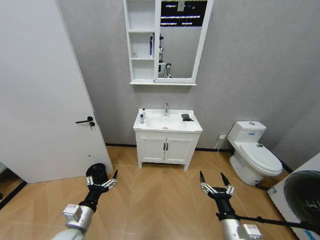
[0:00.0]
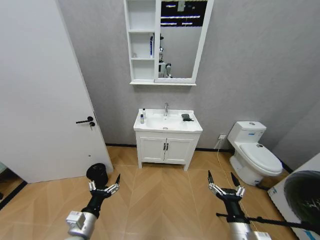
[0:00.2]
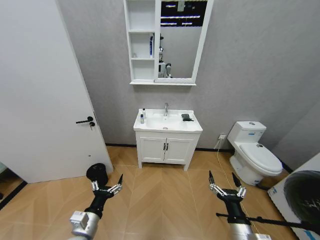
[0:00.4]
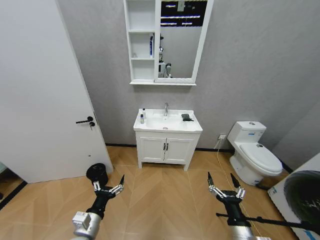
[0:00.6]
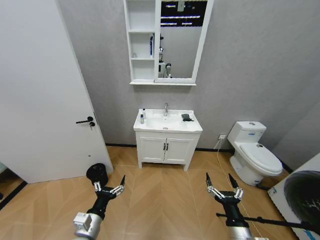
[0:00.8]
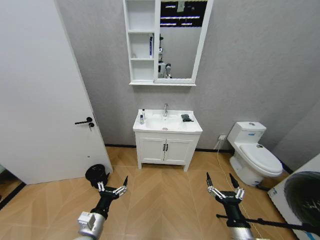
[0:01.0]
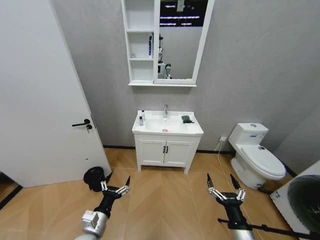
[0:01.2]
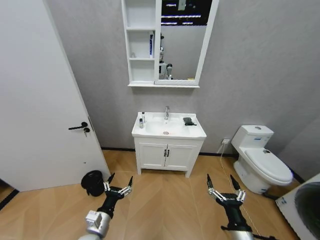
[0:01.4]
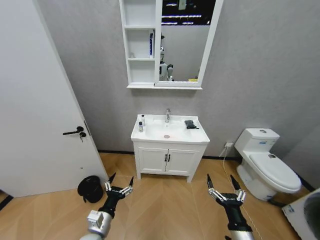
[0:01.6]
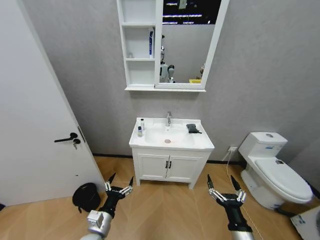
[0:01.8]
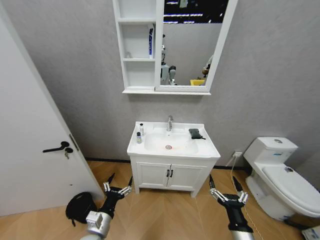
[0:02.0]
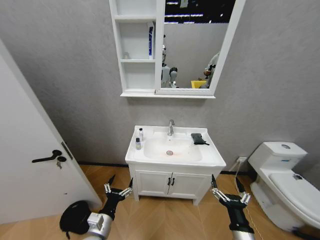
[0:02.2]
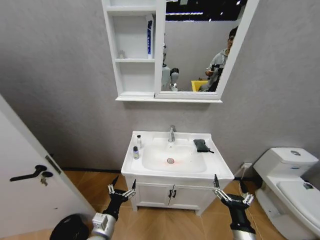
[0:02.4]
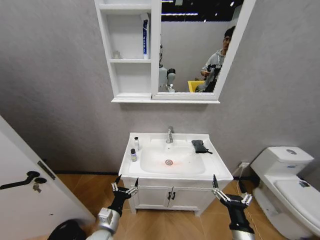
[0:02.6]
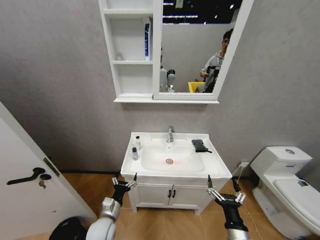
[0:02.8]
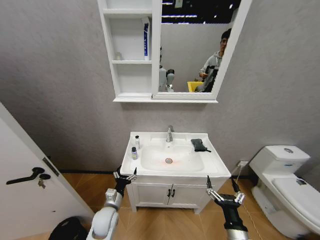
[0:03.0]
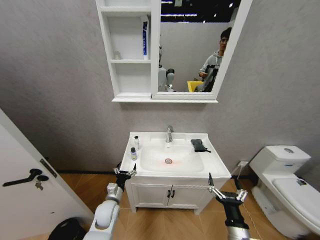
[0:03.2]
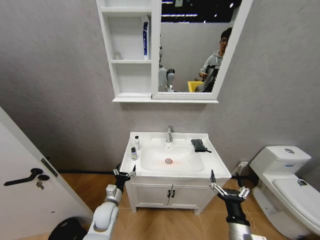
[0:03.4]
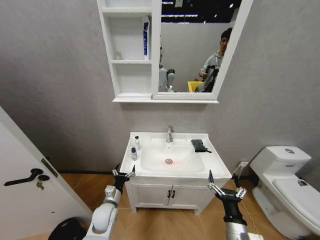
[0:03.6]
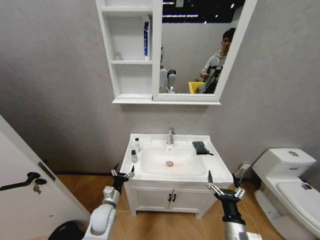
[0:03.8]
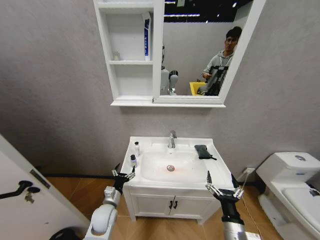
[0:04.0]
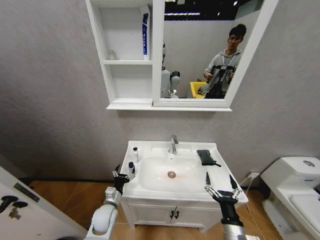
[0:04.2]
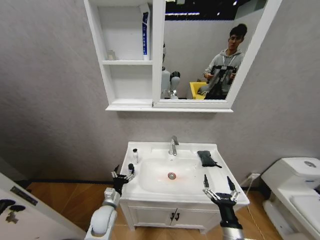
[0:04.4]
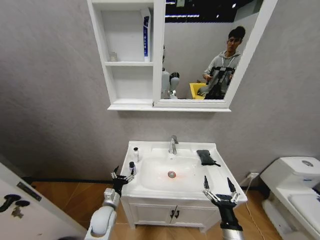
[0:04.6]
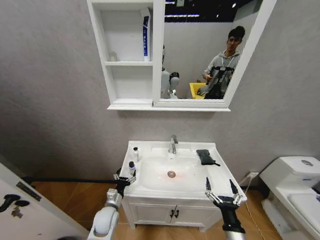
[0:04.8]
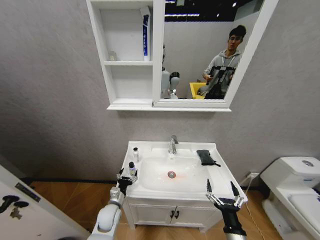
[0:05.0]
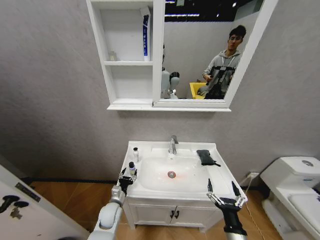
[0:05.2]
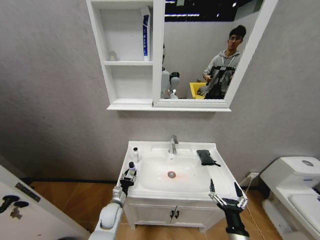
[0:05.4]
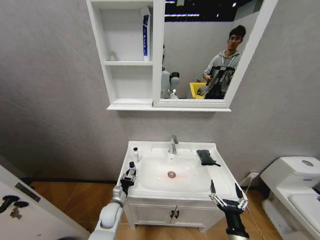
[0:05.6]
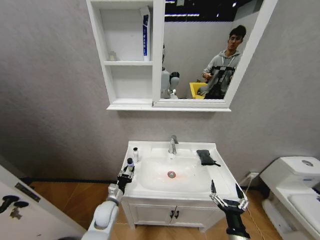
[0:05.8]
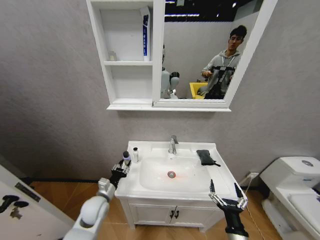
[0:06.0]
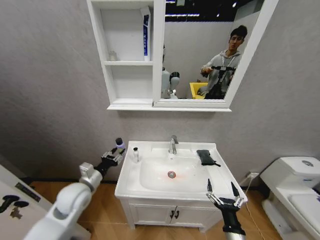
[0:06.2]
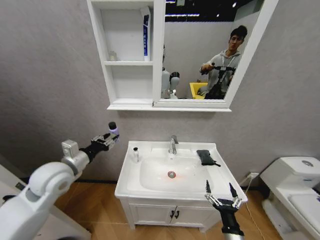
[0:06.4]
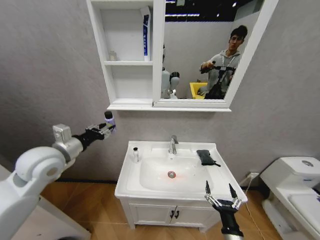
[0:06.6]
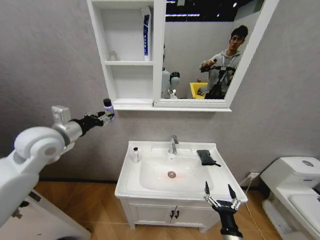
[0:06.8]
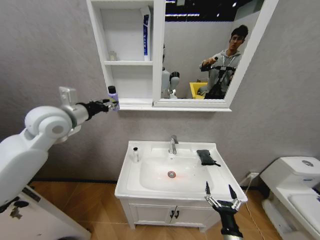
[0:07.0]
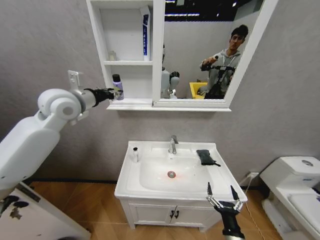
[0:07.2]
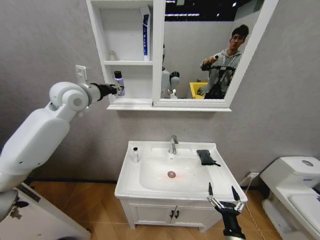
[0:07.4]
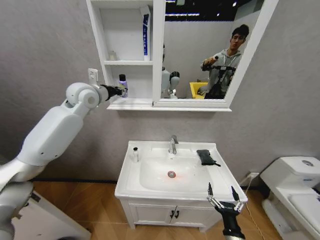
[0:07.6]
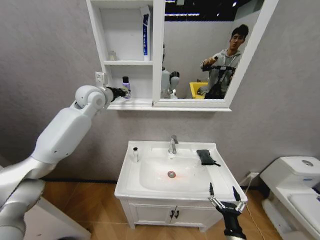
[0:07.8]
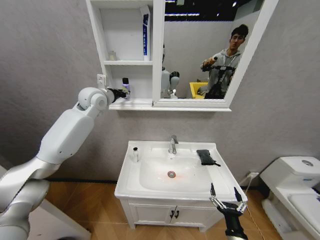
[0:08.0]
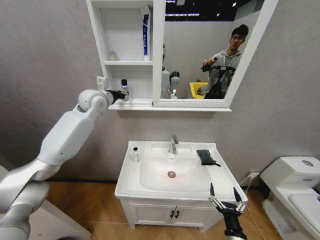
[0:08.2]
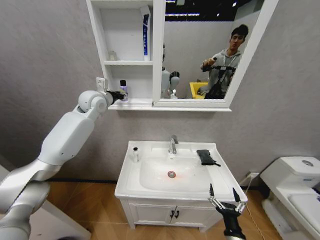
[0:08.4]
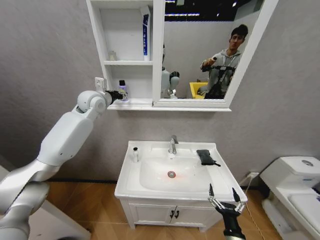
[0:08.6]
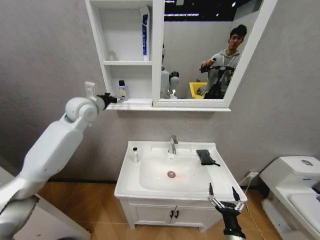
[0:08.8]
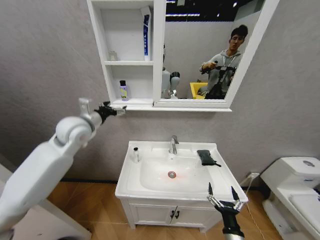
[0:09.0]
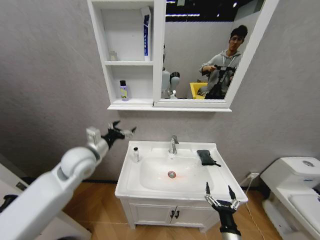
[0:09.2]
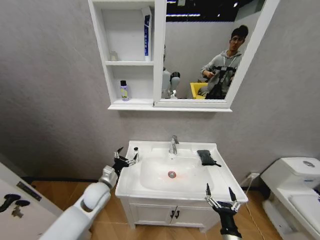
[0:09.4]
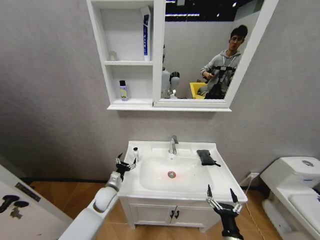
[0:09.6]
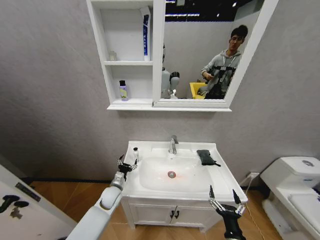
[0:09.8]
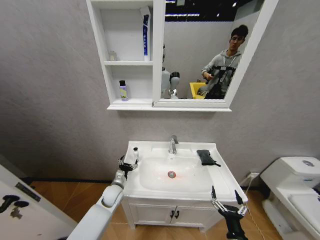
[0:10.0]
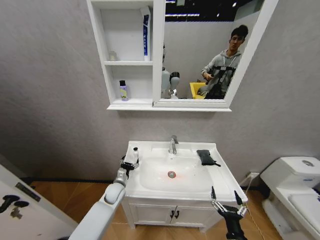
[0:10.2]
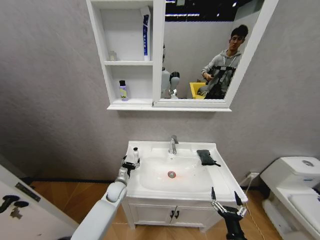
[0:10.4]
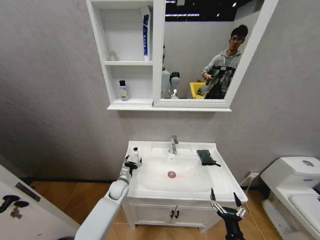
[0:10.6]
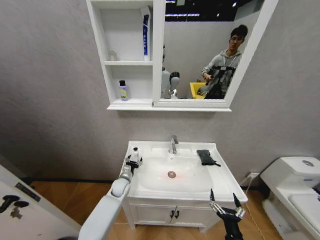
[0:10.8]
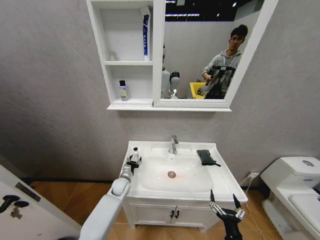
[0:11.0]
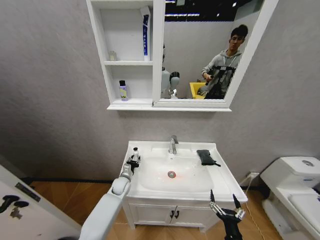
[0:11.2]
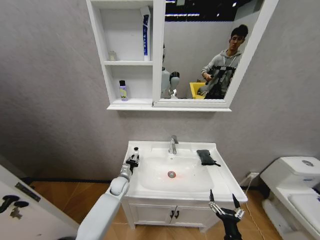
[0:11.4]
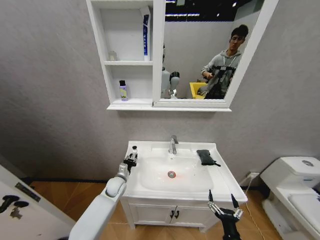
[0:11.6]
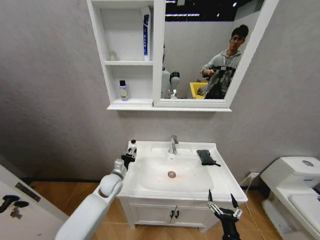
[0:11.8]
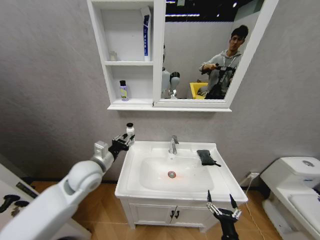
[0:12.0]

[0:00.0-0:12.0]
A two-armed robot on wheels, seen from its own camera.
Task of the whole recording: Move facial cleanser and shampoo from washbasin to cabinet, then wipe washbasin with towel.
0:01.6 to 0:03.0: The left gripper shifts some 10 cm forward and downward.
0:04.4 to 0:06.0: The left gripper closes its fingers.
0:06.0 to 0:07.6: The left gripper goes some 50 cm upward.
0:07.6 to 0:09.0: The left gripper shifts approximately 15 cm downward and backward, and opens its fingers.
0:09.0 to 0:10.4: The left gripper is displaced downward by roughly 35 cm.
0:10.4 to 0:12.0: The left gripper is displaced upward by roughly 25 cm, and closes up.

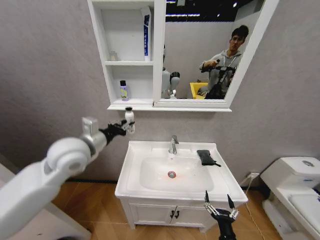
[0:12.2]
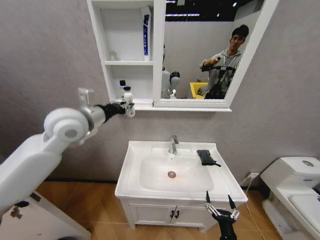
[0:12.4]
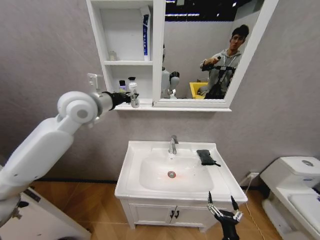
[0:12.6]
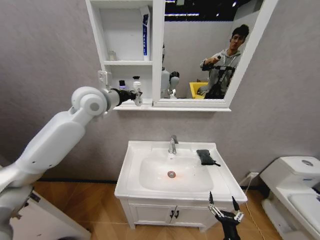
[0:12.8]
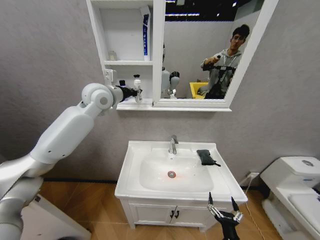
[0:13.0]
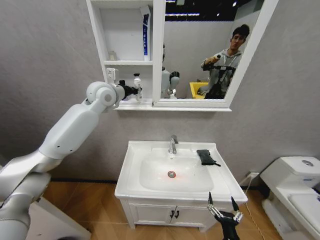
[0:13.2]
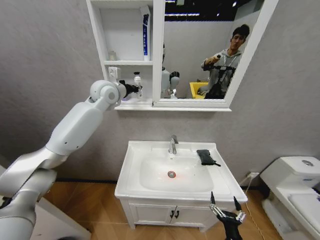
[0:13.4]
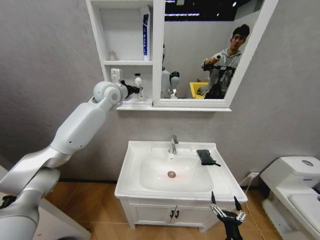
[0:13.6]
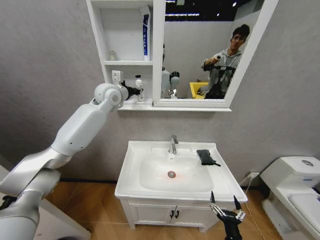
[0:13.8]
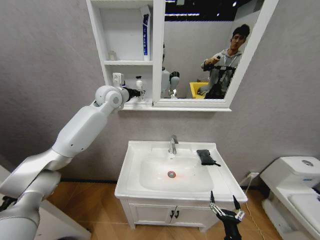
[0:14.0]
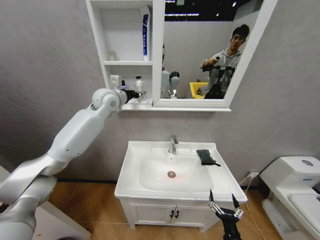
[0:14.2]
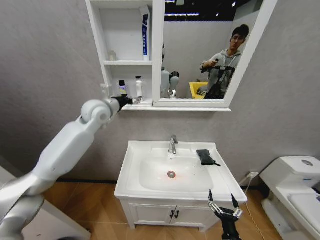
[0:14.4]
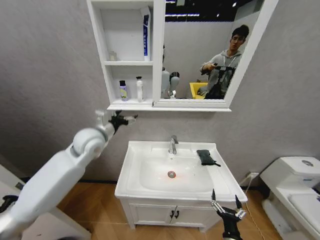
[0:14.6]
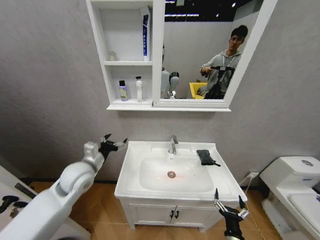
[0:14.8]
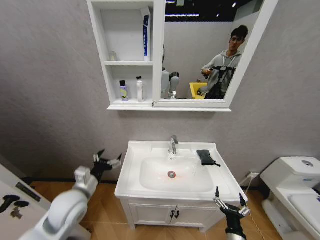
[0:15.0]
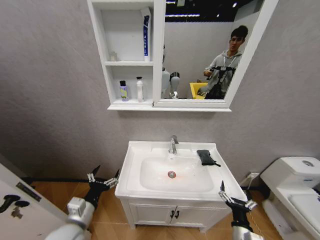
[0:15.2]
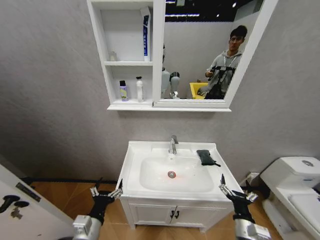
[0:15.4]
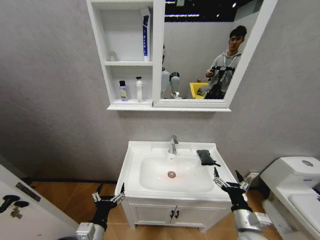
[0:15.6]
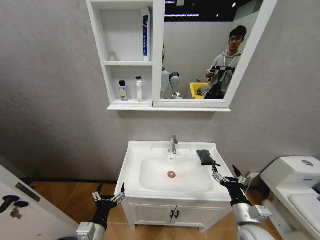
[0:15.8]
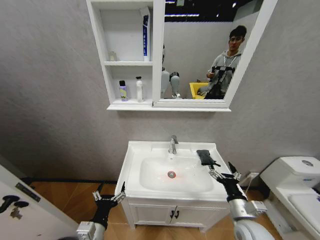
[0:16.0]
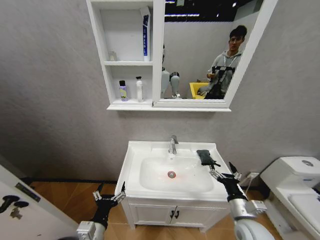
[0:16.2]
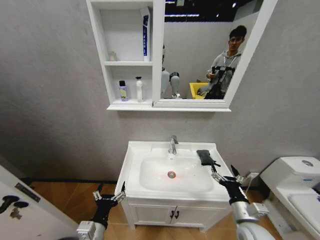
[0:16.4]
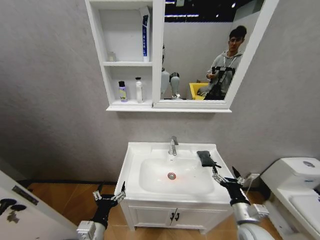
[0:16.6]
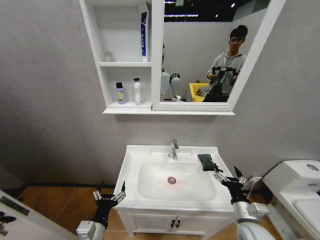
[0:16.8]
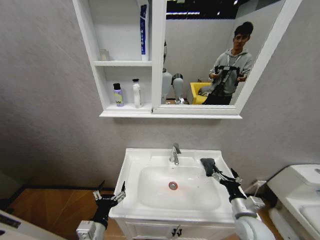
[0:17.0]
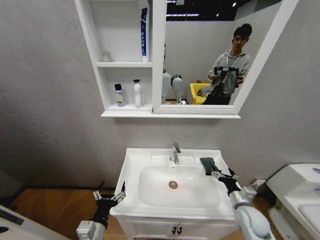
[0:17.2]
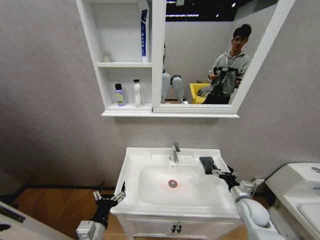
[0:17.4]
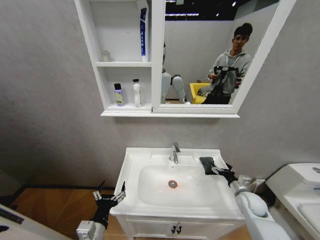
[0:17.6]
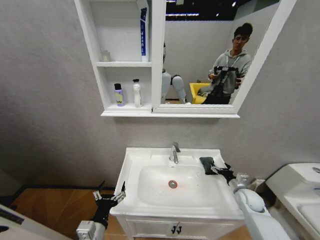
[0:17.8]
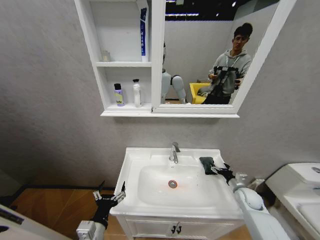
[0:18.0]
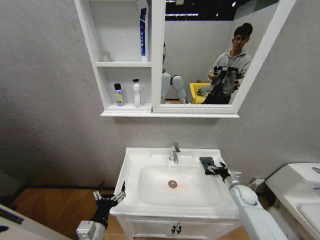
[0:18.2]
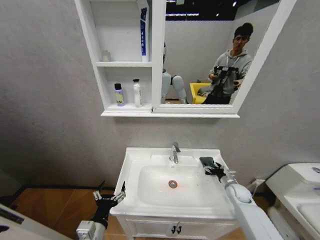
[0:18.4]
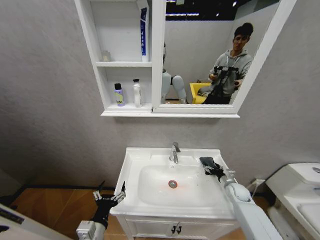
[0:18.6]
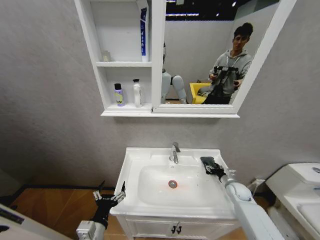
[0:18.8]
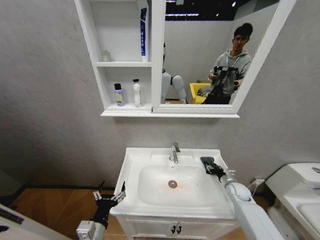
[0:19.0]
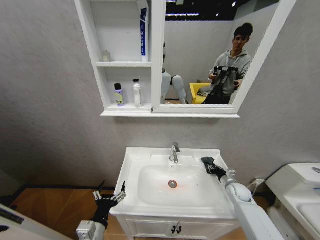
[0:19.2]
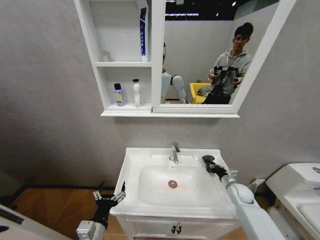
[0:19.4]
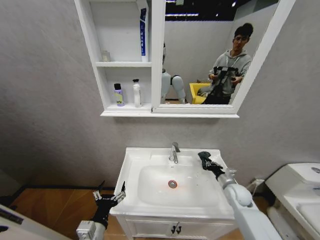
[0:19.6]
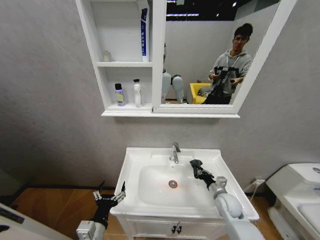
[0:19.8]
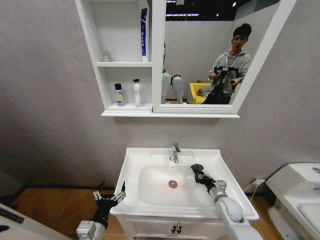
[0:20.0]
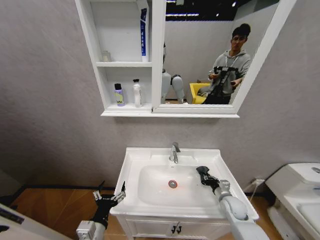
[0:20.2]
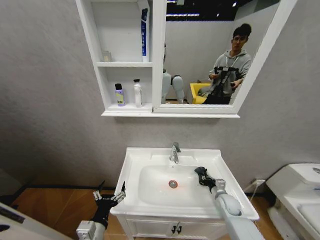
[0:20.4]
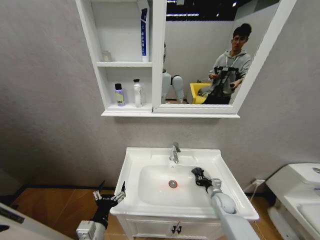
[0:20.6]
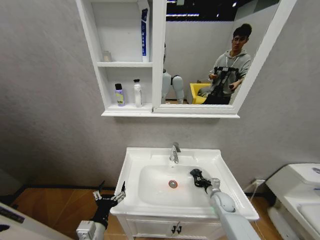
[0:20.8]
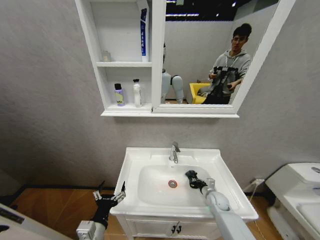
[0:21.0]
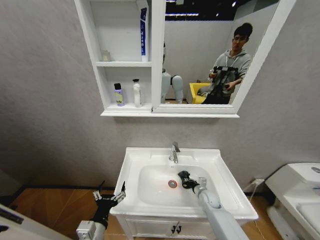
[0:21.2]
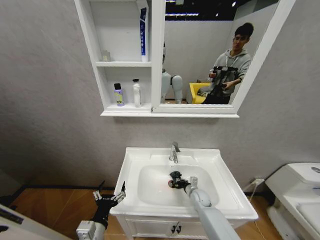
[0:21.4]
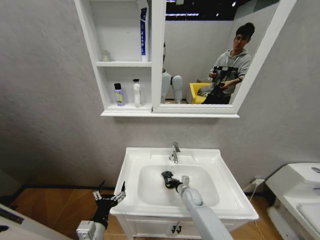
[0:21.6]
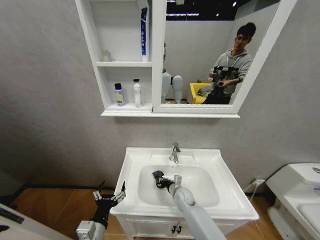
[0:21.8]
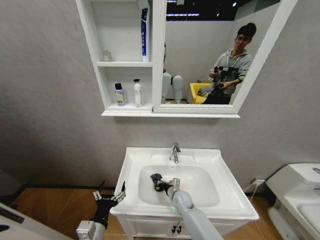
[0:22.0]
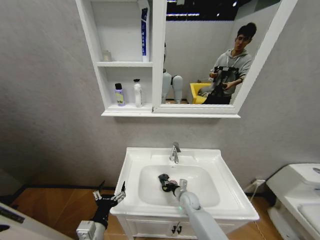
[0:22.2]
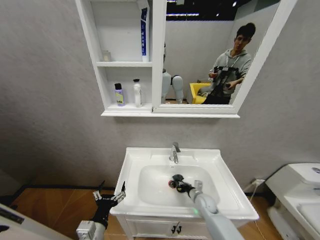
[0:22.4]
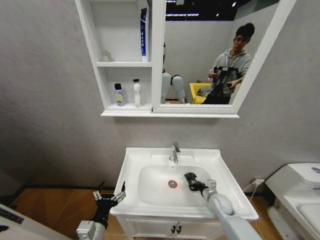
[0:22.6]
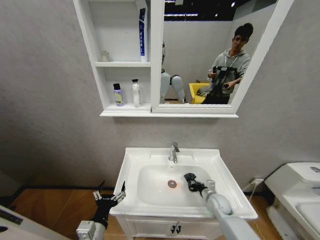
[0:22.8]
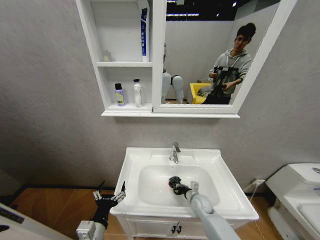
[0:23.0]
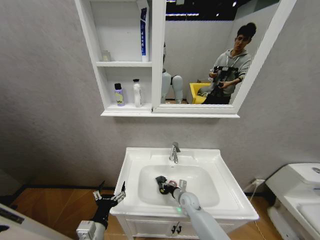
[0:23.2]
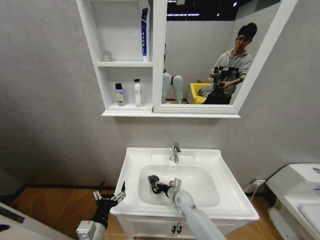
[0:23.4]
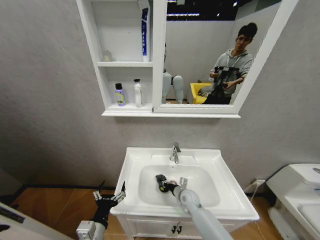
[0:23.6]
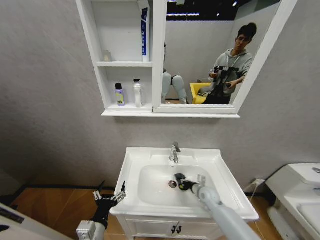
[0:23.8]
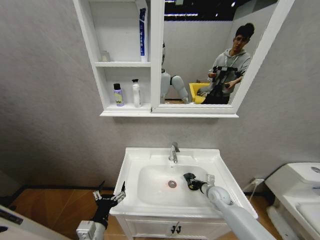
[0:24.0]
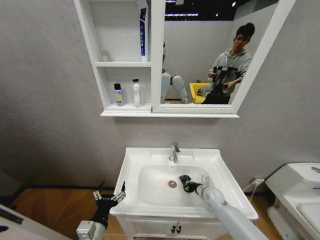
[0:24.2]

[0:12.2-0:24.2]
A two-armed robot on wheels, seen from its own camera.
Task of the whole recording: Move facial cleanser and shampoo from washbasin to cabinet, then wipe washbasin with towel.
0:12.2 to 0:13.8: The left gripper is displaced forward and upward by about 25 cm.
0:13.8 to 0:15.2: The right gripper changes place by some 5 cm, while the left gripper is displaced backward and downward by roughly 50 cm, and opens its fingers.
0:15.2 to 0:16.6: The left gripper goes roughly 10 cm to the right and backward. The right gripper is displaced upward by some 10 cm.
0:16.6 to 0:18.2: The right gripper heads forward and to the right, covering roughly 20 cm.
0:18.2 to 0:19.8: The right gripper goes some 10 cm to the left, and closes up.
0:19.8 to 0:21.2: The right gripper moves downward and forward, roughly 10 cm.
0:21.2 to 0:22.6: The right gripper travels to the left and back again, roughly 15 cm each way.
0:22.6 to 0:24.2: The right gripper travels to the left and back again, approximately 15 cm each way.
